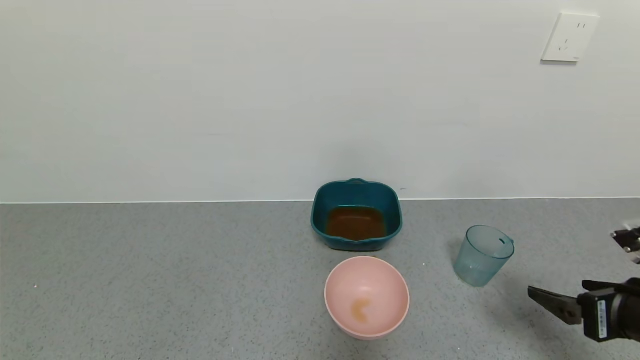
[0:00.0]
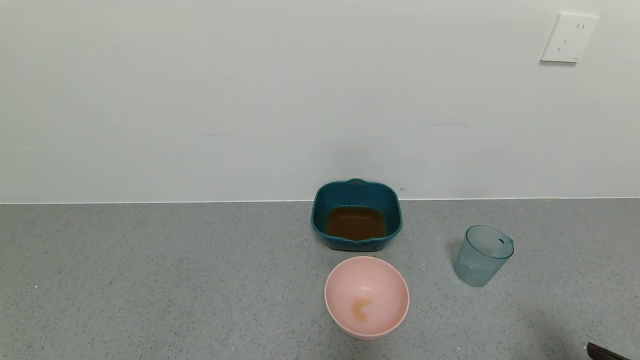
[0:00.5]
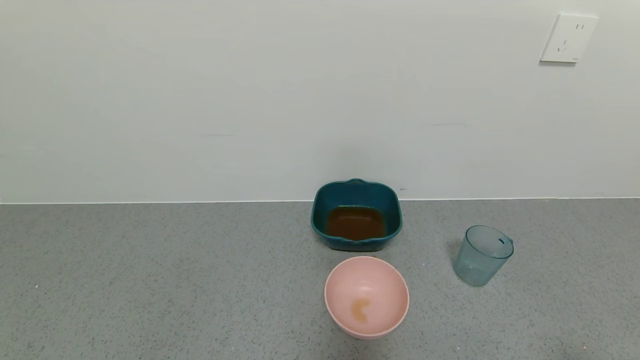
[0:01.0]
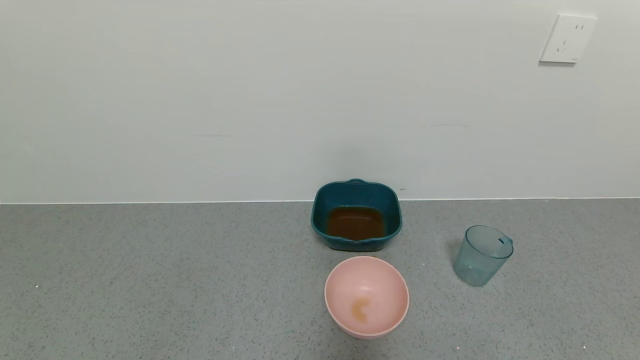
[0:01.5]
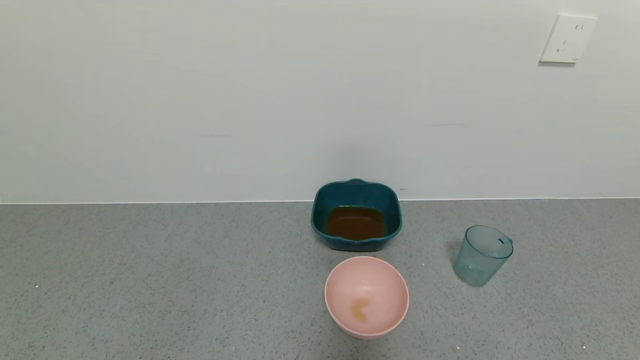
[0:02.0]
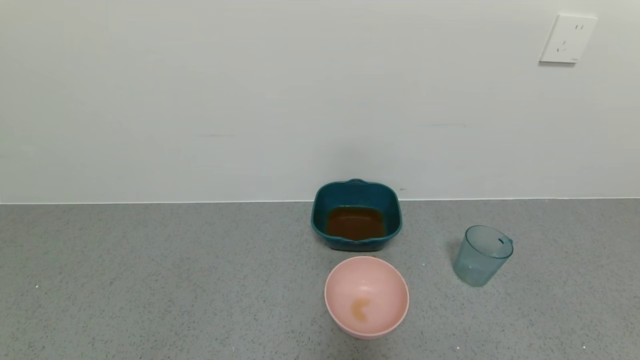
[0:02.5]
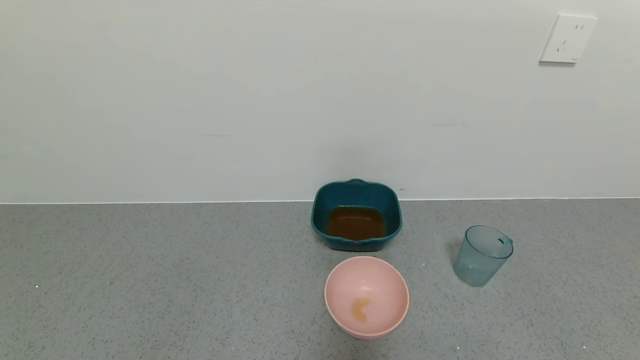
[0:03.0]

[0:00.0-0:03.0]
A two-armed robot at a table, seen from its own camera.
Task of the whole recording: use a gripper to pick up the cup and pour the liquid into a bowl or tray.
0:00.0 to 0:01.5: The right gripper is displaced backward by roughly 20 cm.
